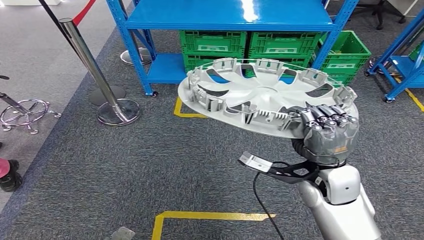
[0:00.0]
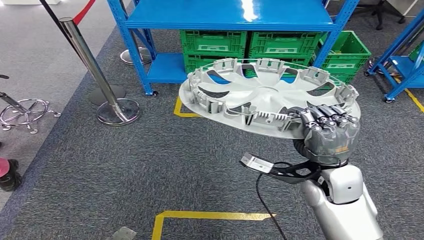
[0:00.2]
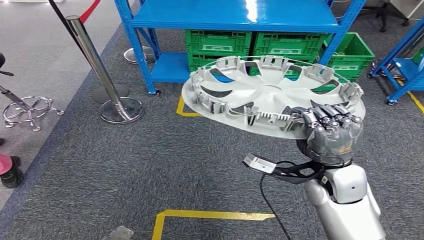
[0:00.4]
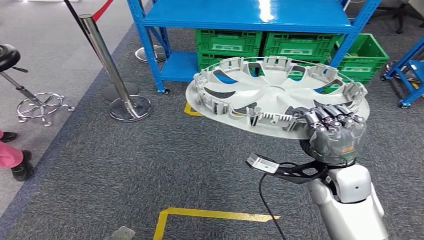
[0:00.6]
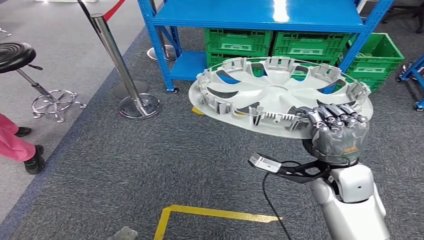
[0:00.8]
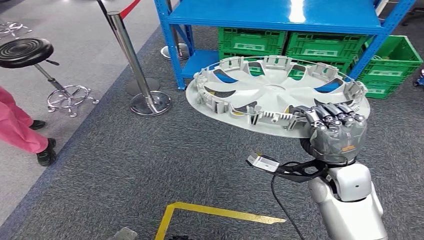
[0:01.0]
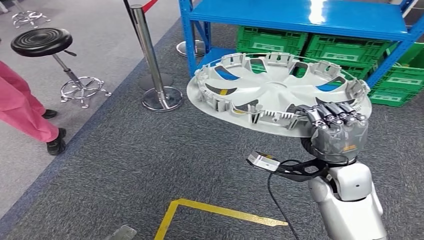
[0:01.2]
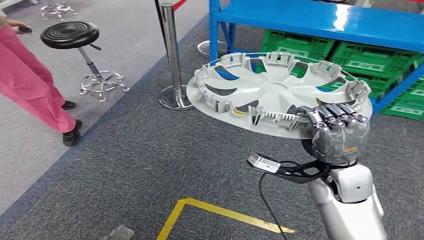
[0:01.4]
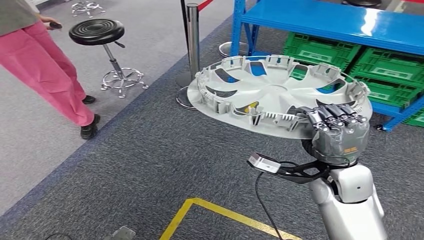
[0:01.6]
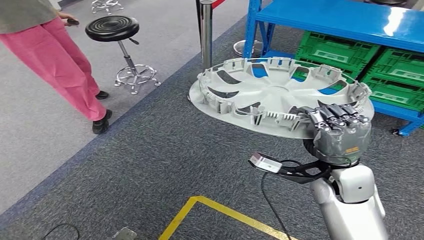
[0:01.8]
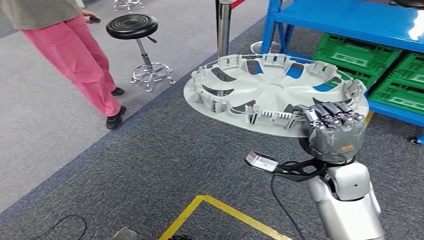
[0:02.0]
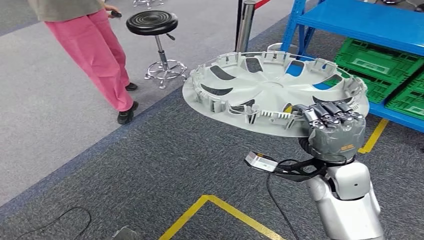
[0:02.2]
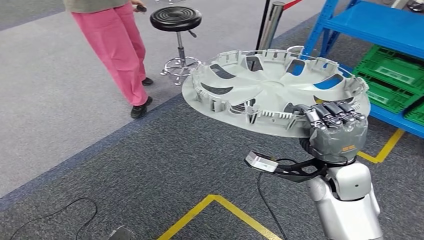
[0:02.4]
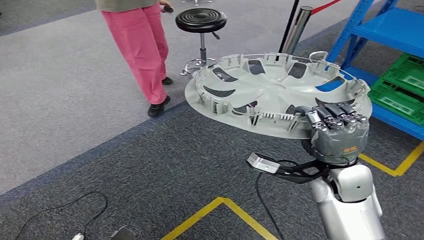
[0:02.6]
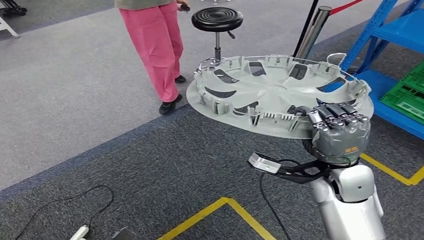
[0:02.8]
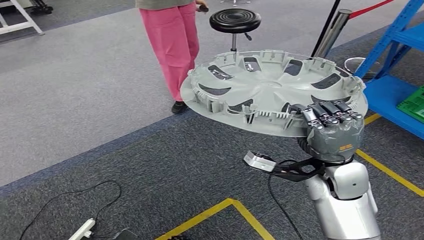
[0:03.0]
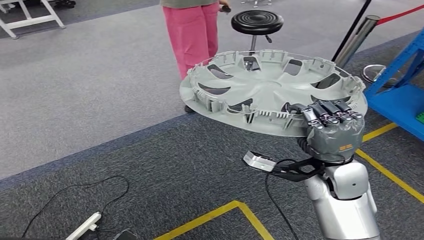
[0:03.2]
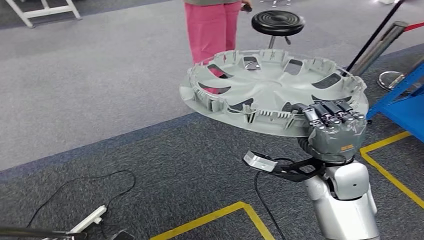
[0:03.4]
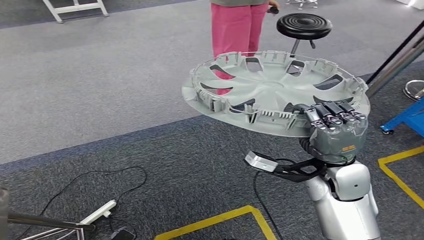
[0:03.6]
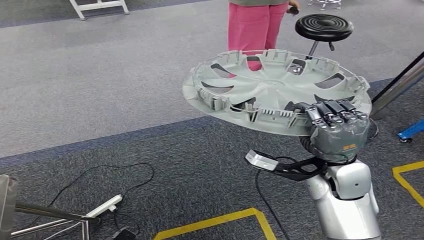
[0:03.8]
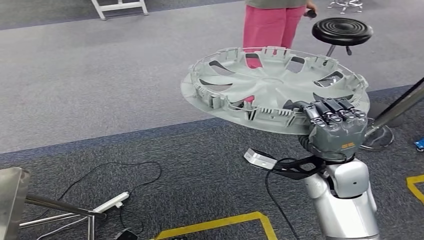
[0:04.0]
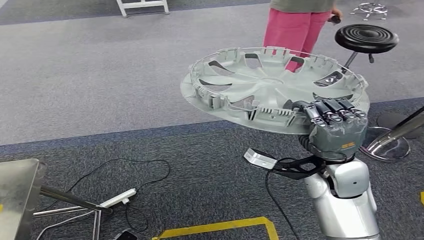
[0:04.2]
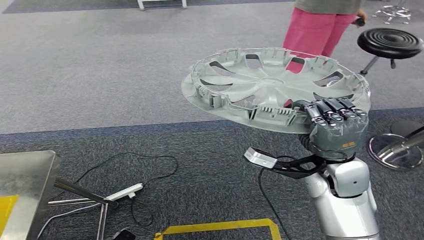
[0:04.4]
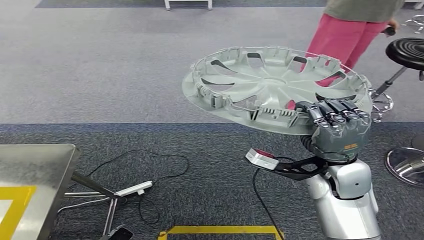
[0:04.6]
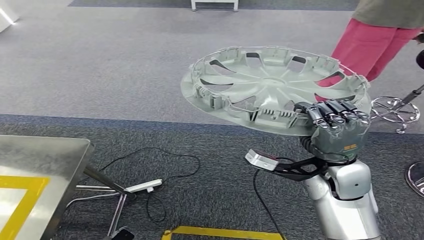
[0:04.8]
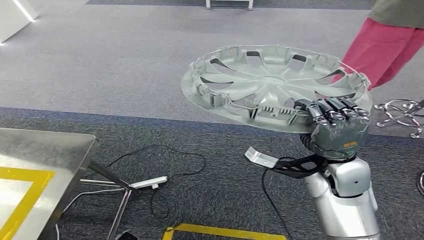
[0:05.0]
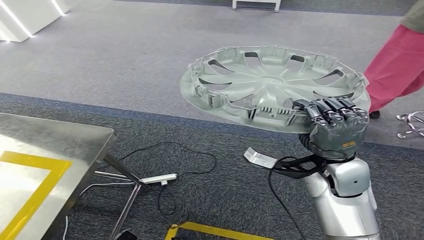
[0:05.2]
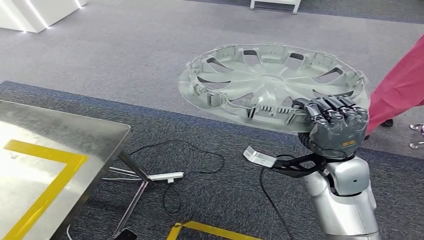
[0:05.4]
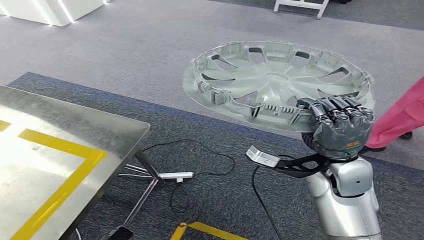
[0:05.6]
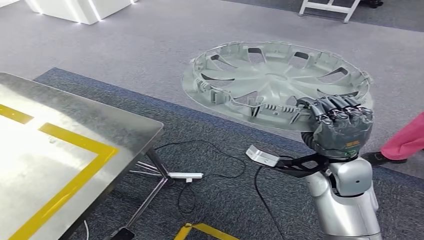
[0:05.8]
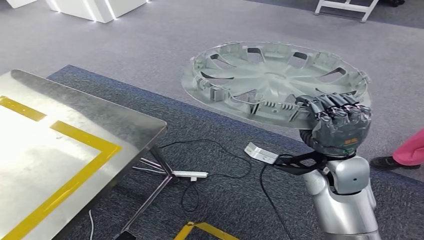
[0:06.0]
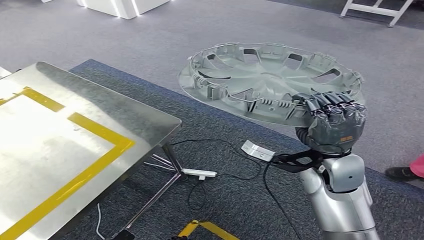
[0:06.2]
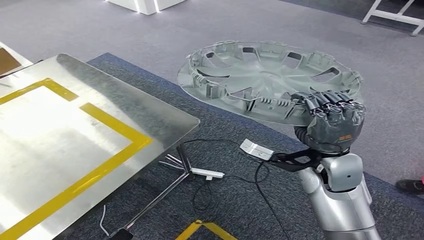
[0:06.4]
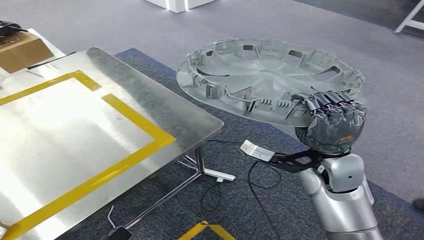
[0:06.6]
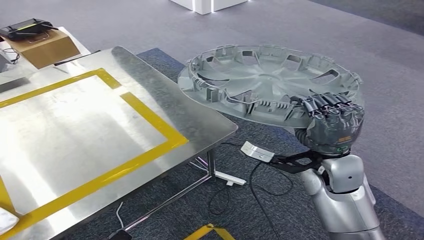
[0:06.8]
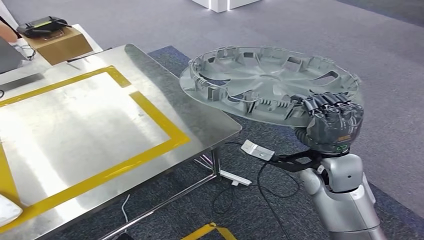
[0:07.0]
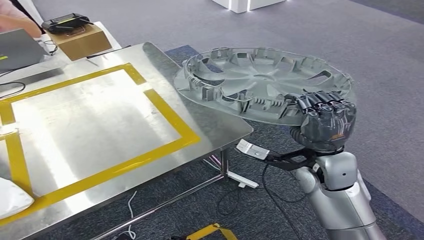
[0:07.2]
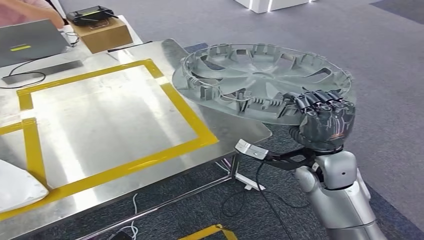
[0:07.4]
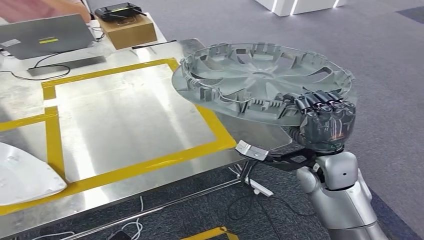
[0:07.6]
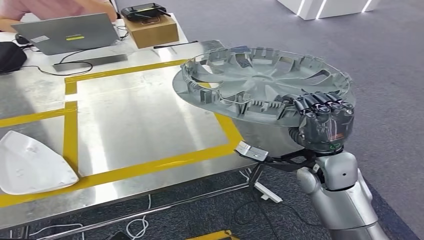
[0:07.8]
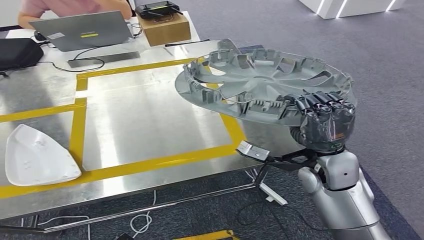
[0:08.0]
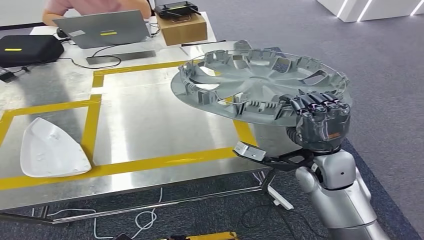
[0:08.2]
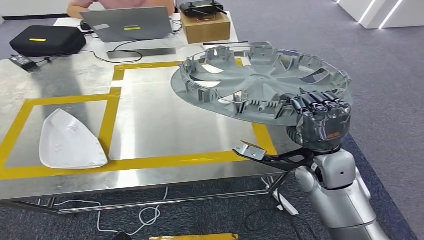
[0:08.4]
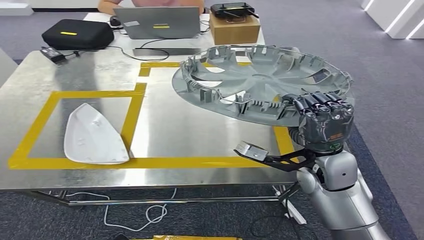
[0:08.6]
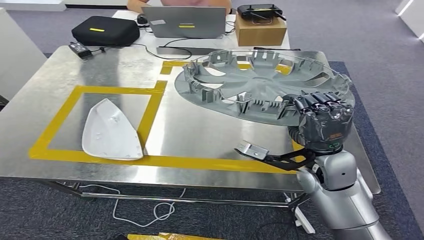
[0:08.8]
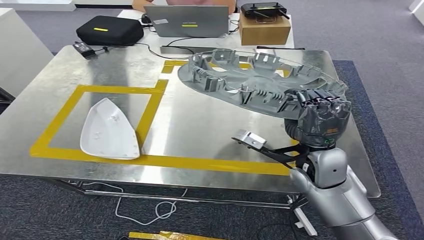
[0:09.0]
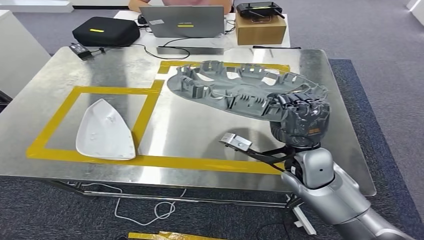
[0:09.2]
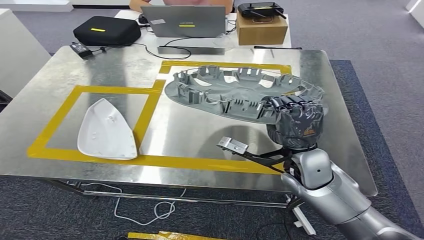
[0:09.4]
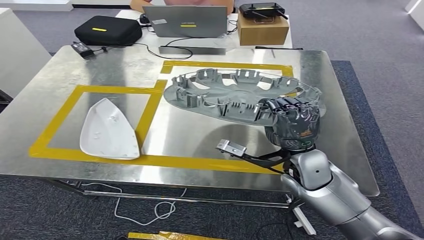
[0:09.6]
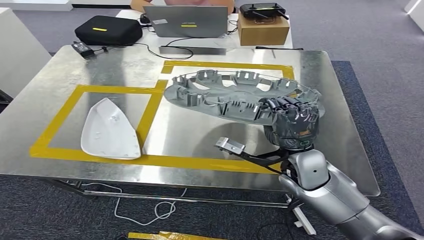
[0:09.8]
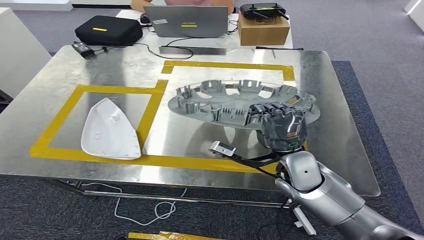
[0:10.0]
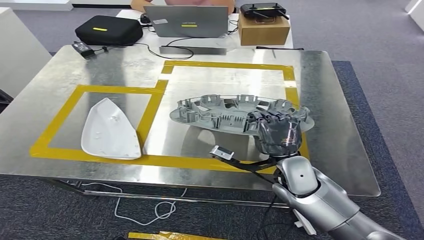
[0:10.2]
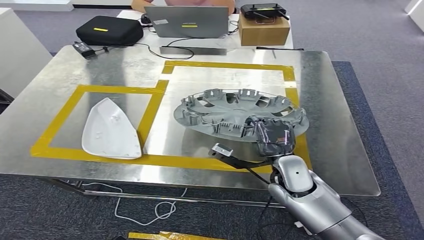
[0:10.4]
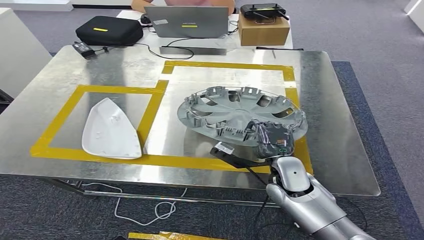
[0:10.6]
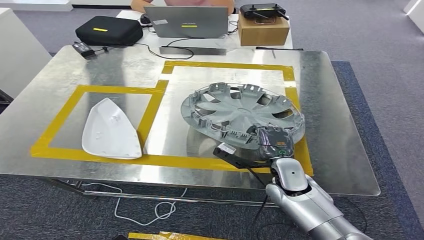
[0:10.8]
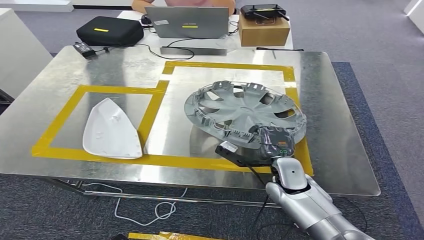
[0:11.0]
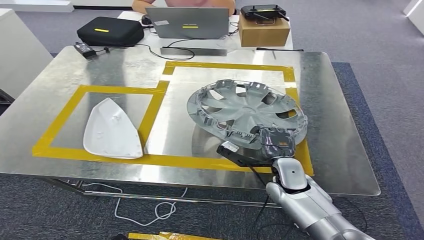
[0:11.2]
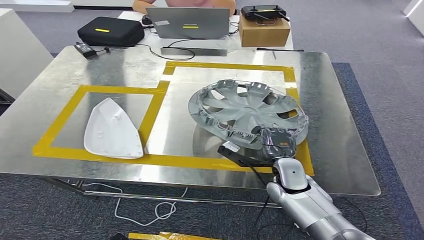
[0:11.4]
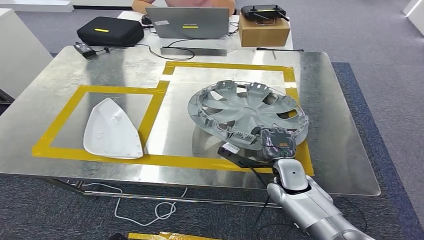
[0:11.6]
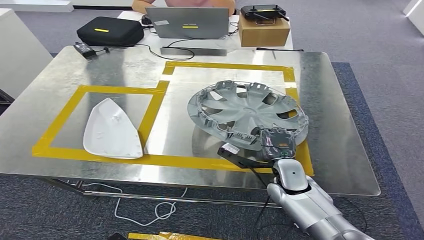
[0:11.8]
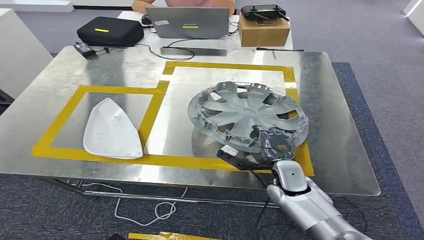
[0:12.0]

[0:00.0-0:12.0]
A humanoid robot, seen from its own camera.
Step, 0:00.0 to 0:07.6: Move the small parts to the workbench.
0:10.4 to 0:12.0: The right hand is displaced downward by approximately 5 cm.

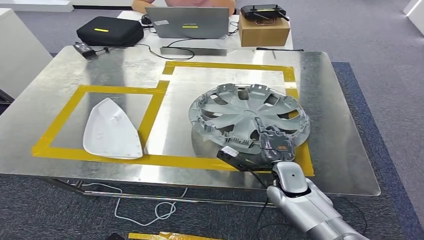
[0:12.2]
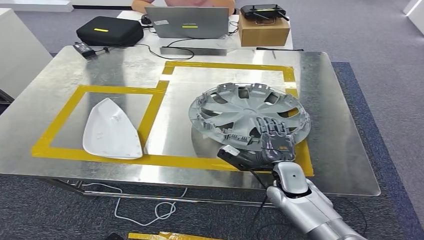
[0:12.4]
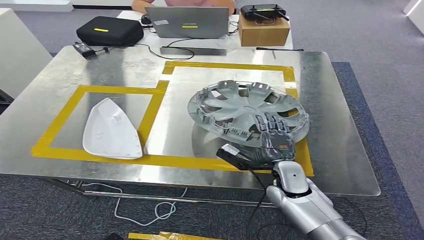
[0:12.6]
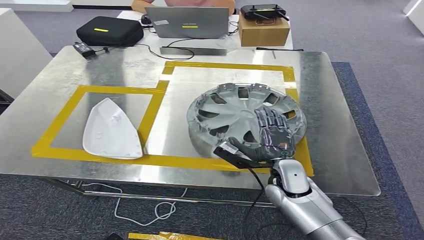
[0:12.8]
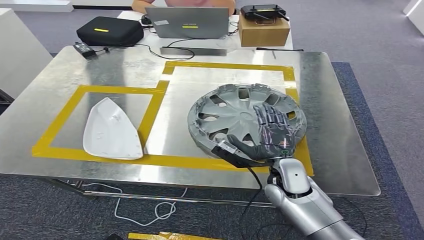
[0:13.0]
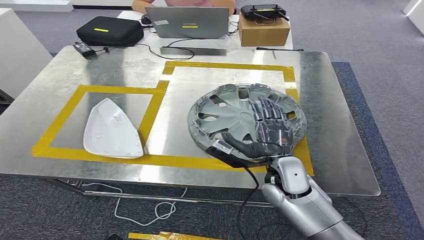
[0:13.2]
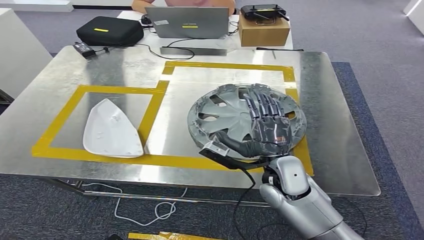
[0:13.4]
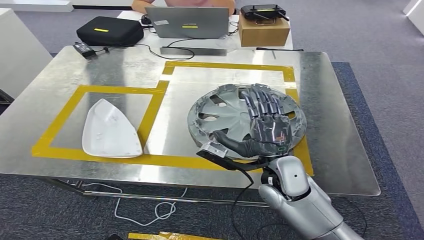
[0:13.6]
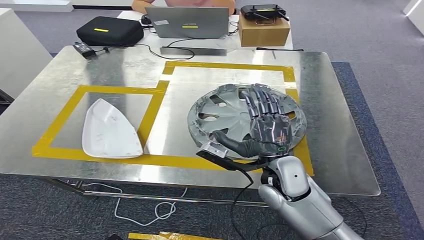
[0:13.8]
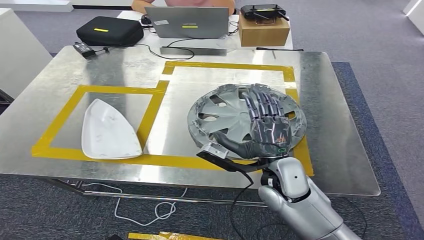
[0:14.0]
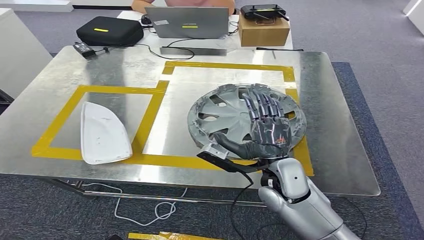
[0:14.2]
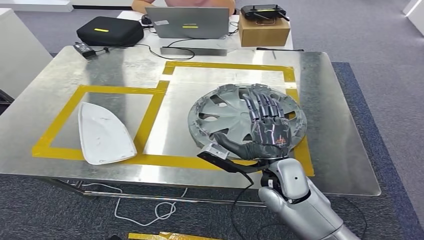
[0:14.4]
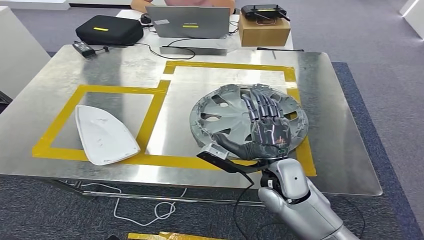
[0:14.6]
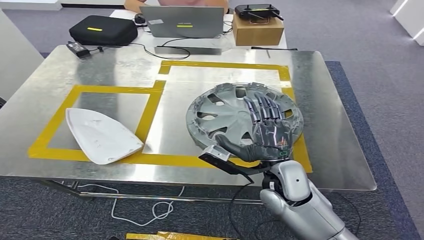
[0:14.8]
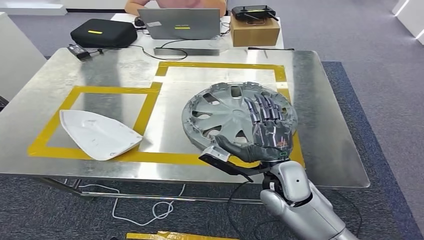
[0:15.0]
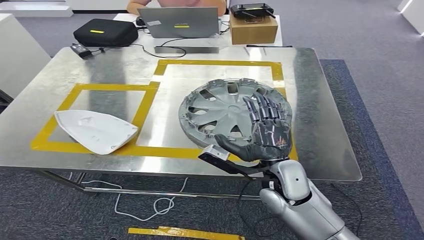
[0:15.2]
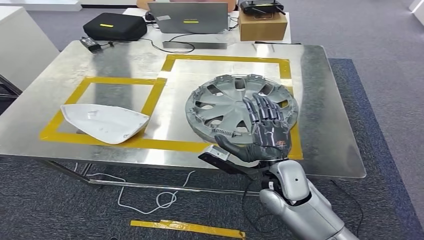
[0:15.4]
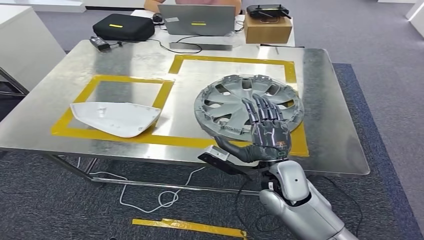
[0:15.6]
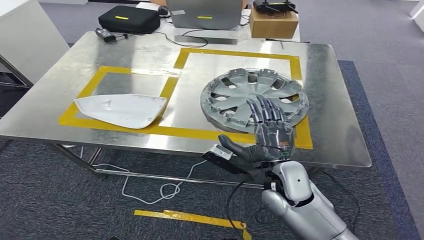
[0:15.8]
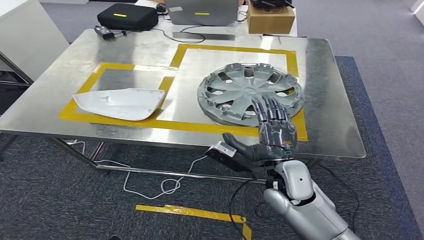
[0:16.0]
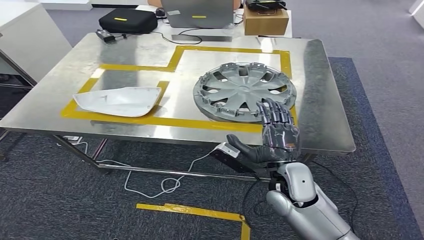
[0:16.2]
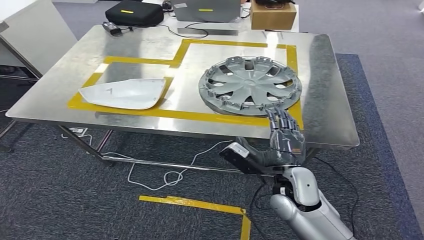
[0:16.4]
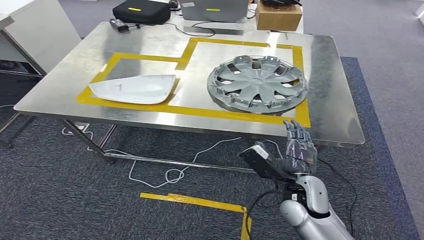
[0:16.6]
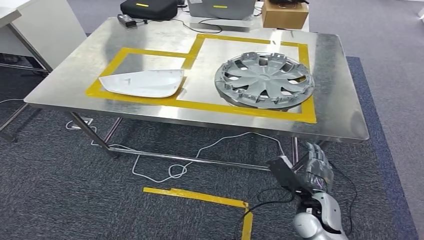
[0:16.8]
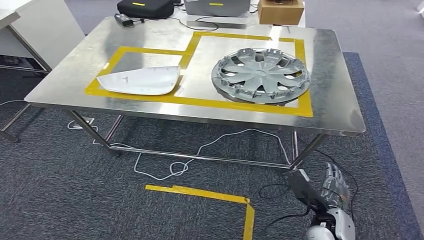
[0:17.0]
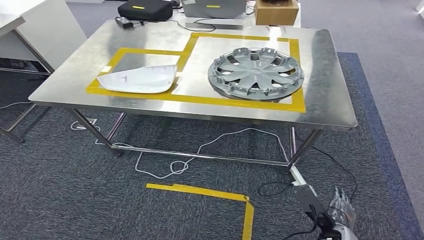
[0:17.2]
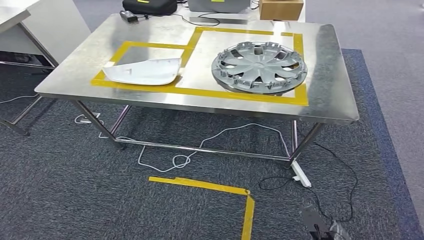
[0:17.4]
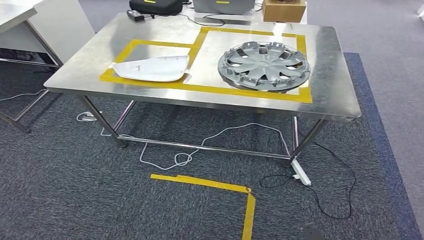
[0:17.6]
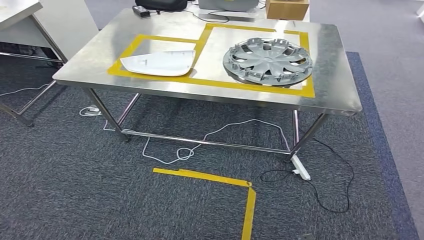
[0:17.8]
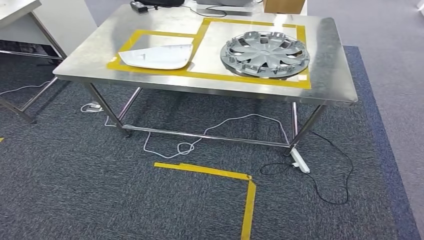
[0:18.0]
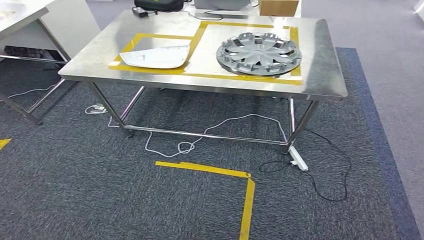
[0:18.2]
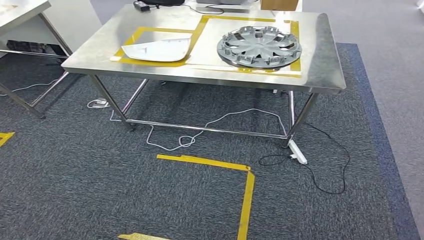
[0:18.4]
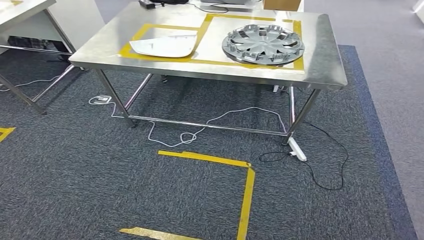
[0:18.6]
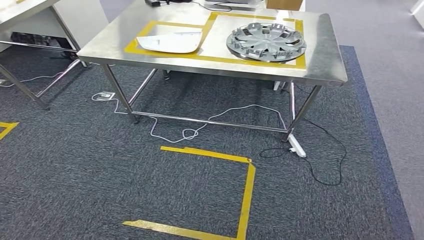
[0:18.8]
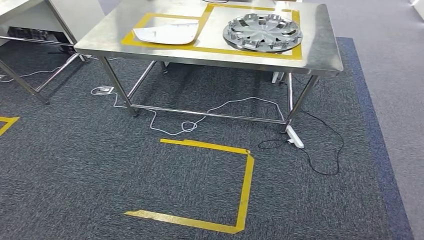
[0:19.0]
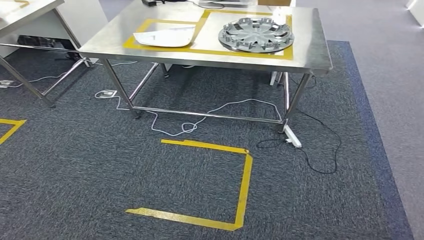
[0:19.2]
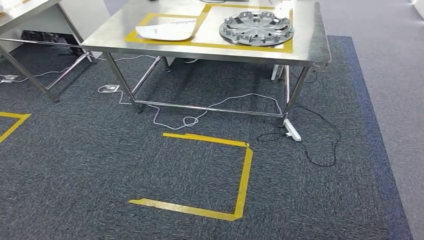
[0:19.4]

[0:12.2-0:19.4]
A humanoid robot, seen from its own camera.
0:12.2 to 0:13.6: The right hand travels upward by about 10 cm.
